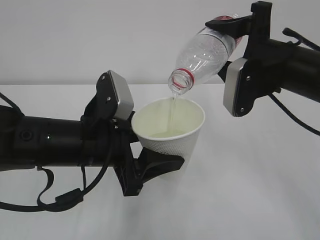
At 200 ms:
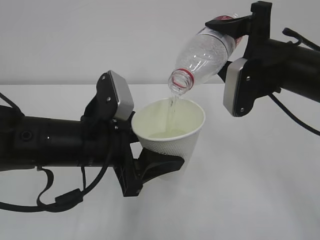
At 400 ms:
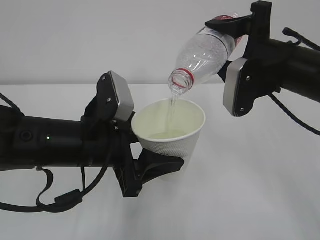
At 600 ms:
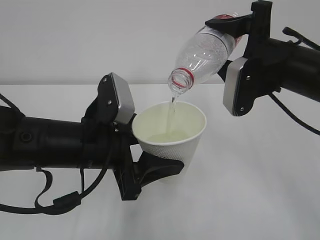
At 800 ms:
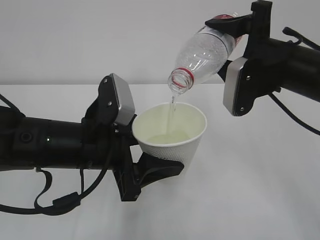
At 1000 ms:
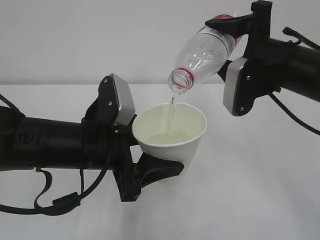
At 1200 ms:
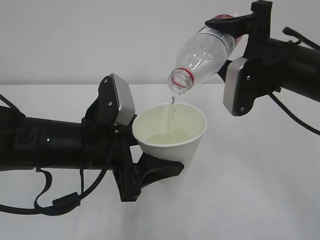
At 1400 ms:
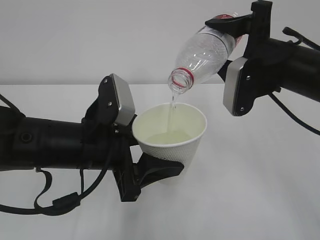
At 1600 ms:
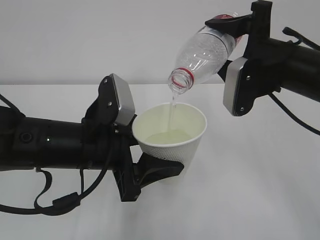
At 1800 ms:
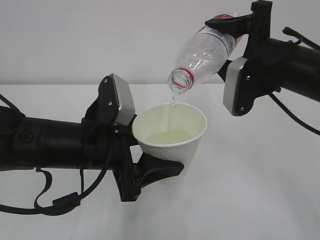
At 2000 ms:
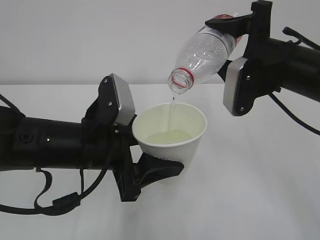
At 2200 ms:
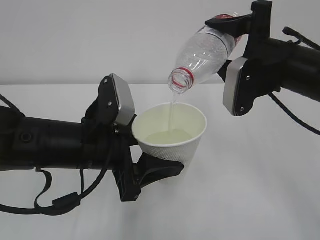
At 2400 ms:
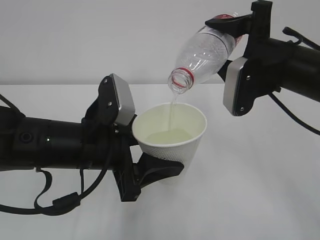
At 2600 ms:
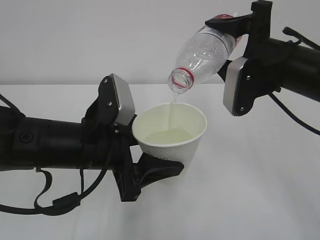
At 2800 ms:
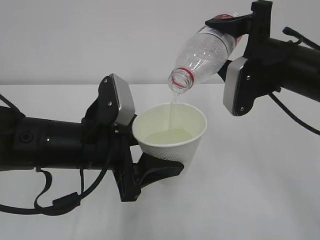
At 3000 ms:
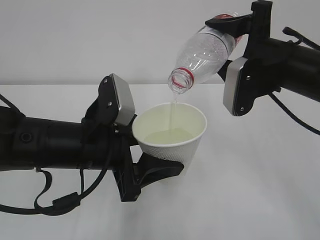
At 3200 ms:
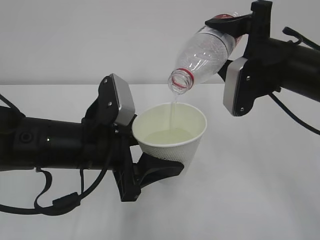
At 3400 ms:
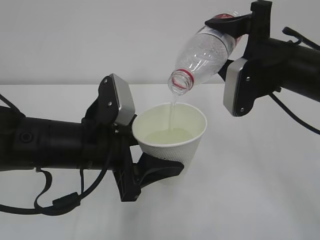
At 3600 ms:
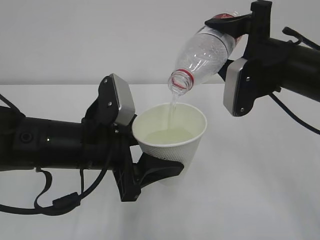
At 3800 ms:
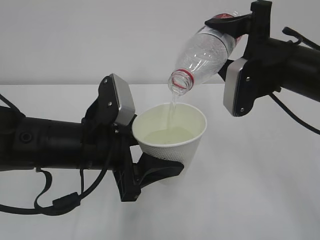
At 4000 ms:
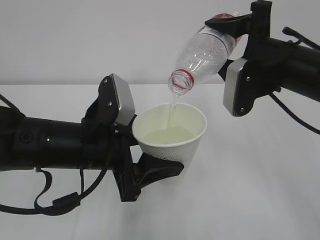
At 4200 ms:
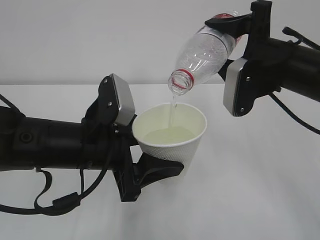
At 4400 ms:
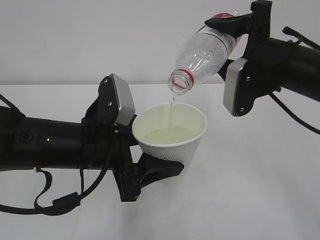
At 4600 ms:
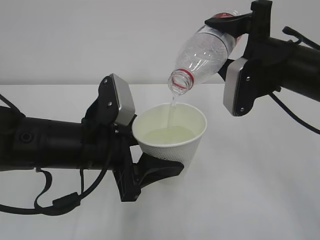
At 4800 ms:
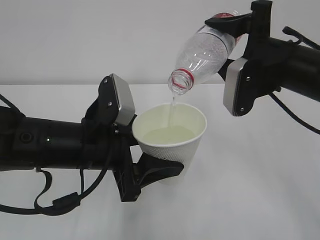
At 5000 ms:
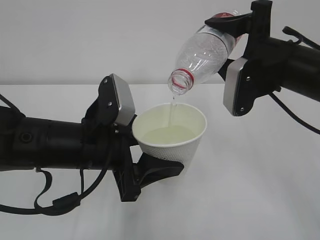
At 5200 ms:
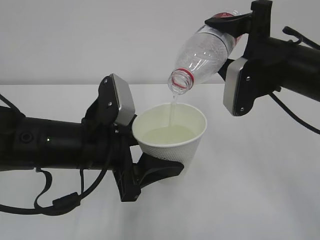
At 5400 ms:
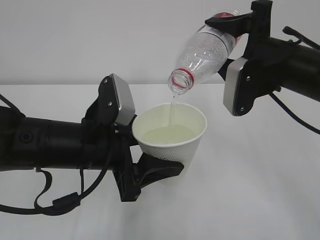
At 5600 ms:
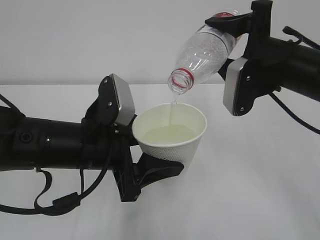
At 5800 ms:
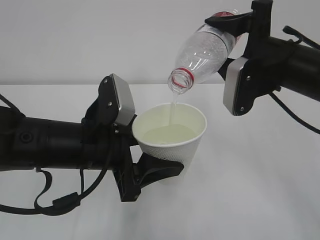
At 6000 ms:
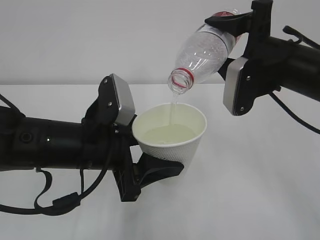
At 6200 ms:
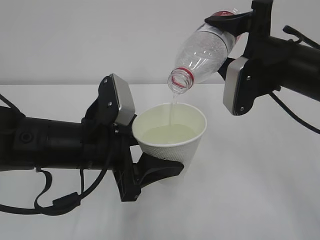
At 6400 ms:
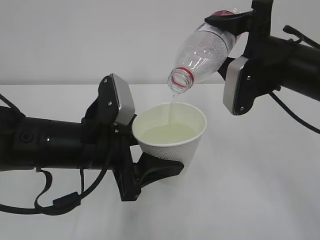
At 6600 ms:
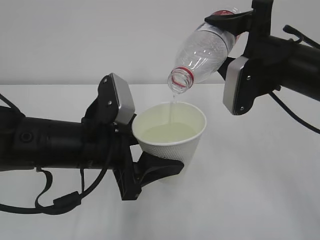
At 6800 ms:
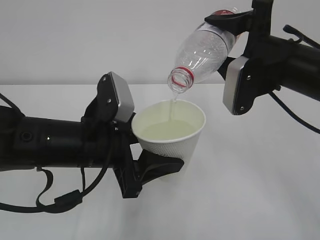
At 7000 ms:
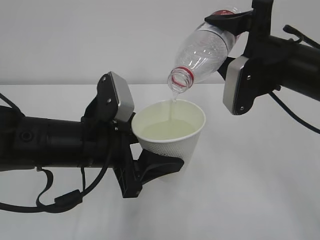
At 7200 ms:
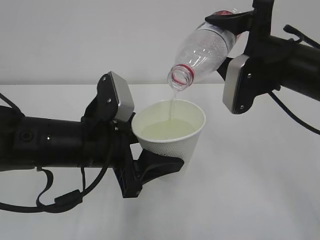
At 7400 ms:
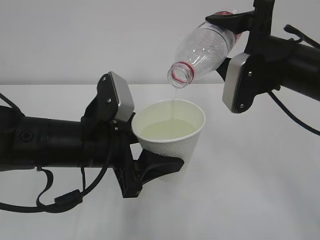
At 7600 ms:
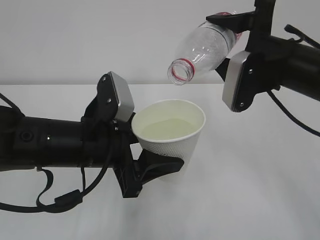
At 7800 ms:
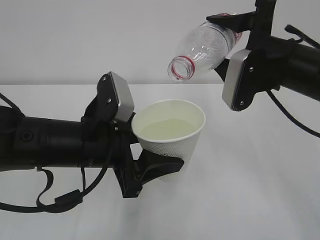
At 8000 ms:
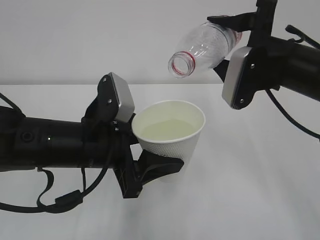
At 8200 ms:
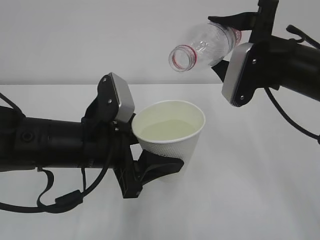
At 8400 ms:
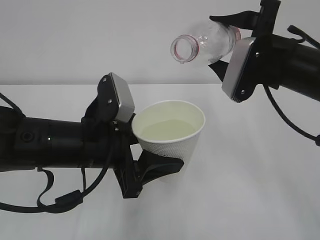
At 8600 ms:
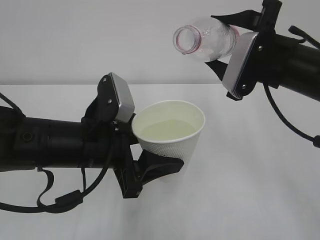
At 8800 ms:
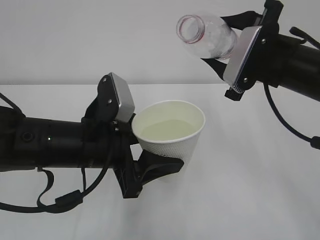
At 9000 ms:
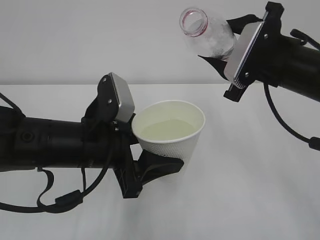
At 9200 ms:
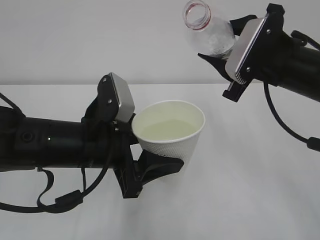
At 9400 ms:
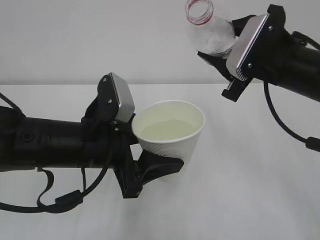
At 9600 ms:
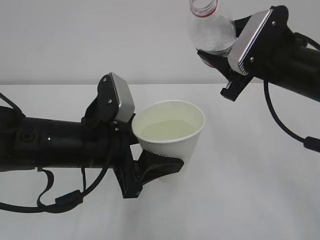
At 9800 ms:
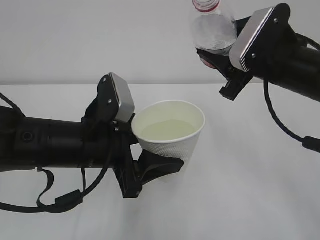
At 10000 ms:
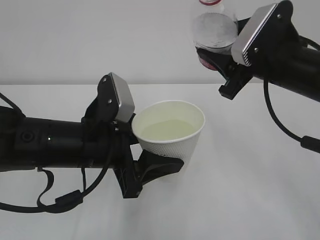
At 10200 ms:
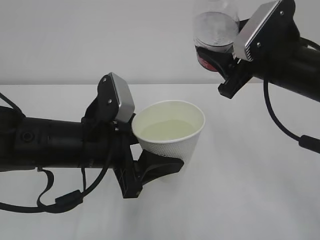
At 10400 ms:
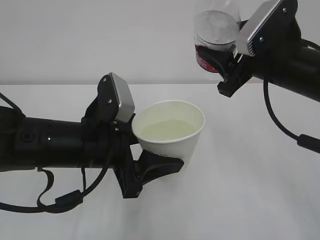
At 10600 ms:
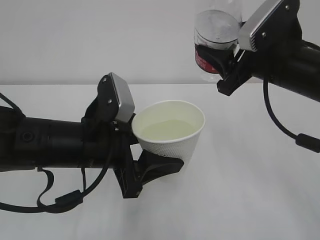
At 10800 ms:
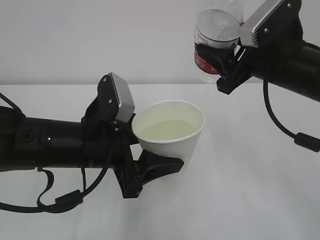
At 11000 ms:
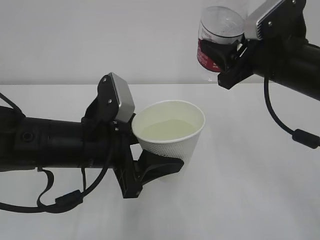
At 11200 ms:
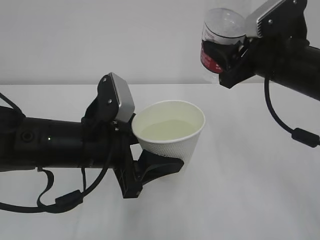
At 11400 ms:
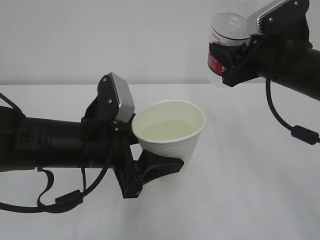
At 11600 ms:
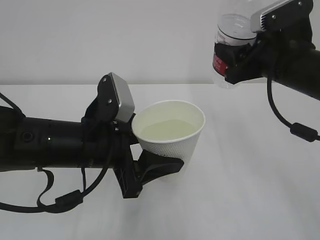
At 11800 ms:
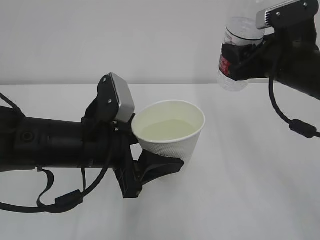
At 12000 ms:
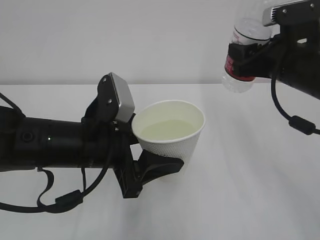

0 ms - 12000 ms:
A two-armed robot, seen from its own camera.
0 ms - 6000 ms: Neither gripper changes place.
6000 ms - 7600 ms: The grippers stay close to where they were, moving slightly.
7600 ms - 9000 ms: The right gripper closes its fingers.

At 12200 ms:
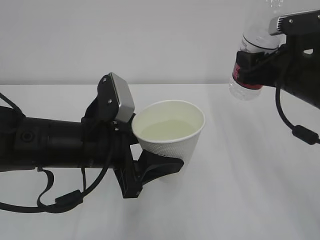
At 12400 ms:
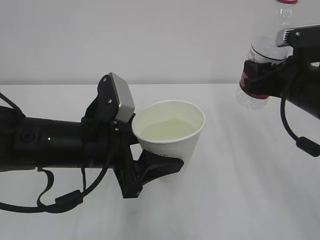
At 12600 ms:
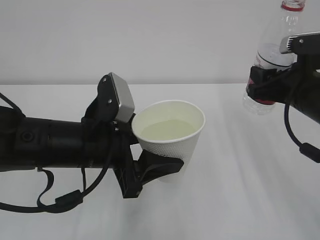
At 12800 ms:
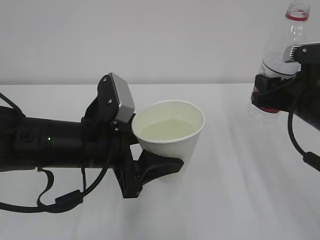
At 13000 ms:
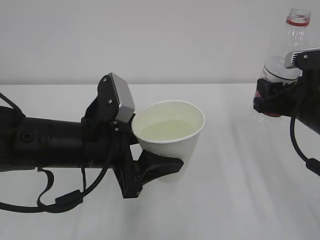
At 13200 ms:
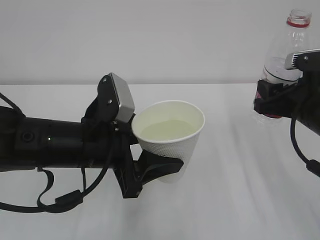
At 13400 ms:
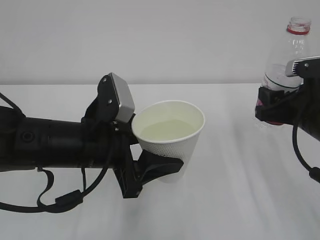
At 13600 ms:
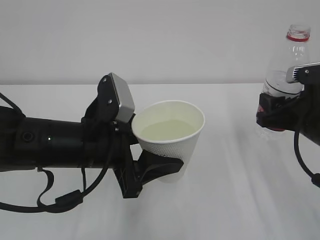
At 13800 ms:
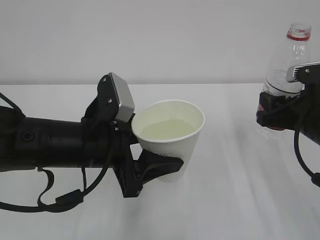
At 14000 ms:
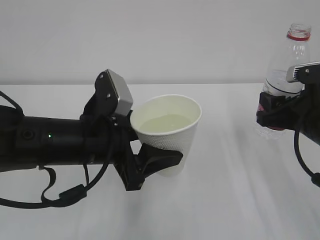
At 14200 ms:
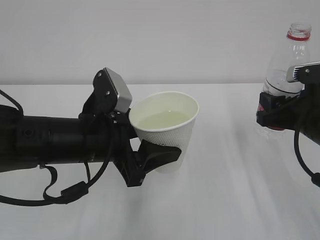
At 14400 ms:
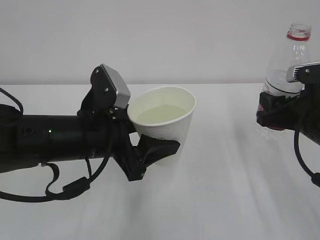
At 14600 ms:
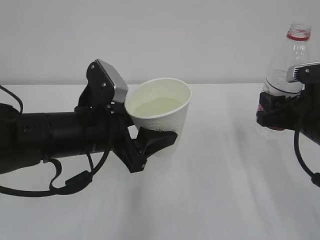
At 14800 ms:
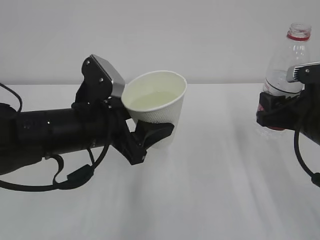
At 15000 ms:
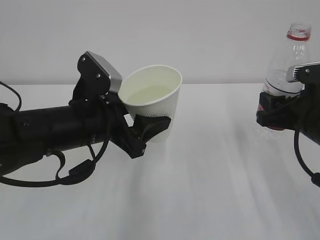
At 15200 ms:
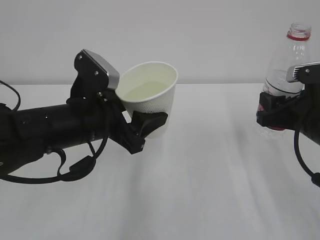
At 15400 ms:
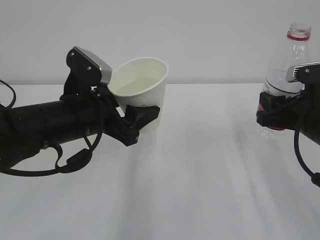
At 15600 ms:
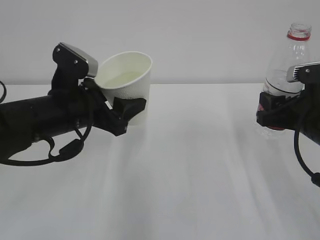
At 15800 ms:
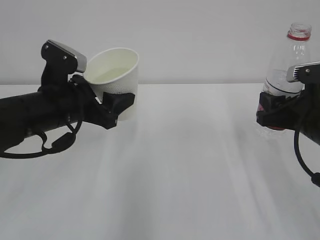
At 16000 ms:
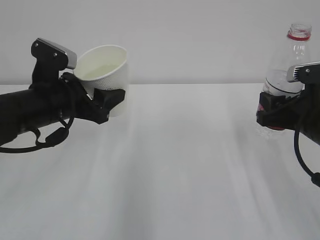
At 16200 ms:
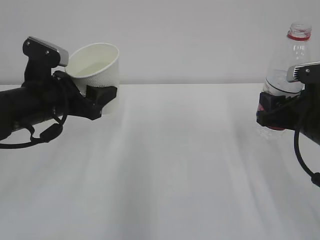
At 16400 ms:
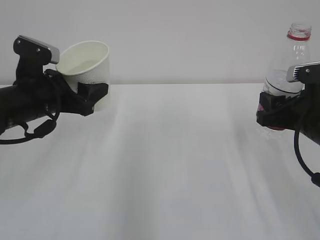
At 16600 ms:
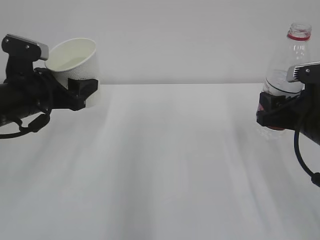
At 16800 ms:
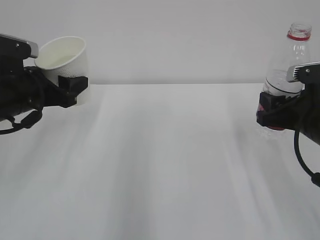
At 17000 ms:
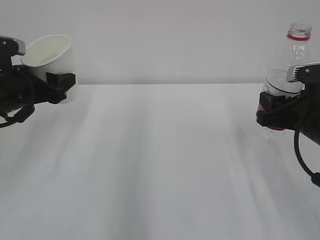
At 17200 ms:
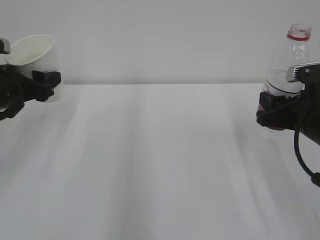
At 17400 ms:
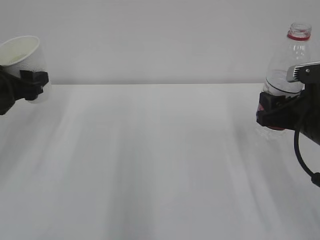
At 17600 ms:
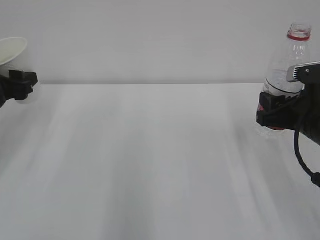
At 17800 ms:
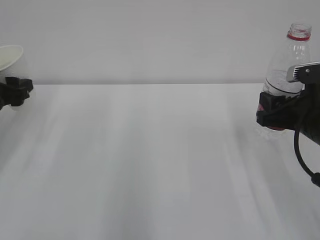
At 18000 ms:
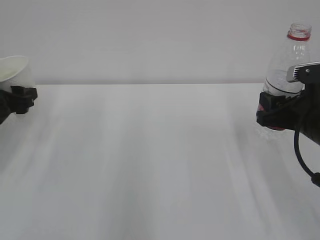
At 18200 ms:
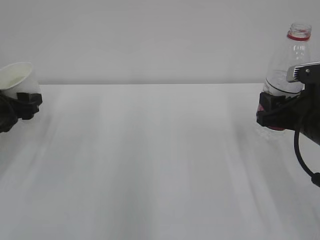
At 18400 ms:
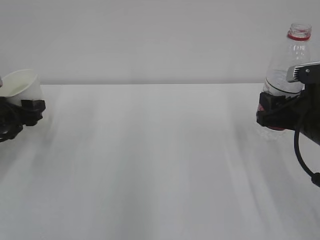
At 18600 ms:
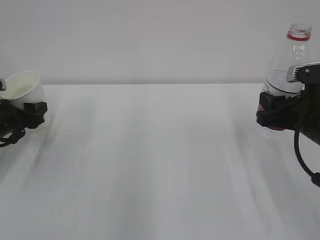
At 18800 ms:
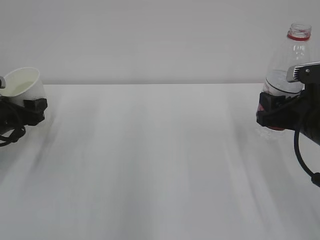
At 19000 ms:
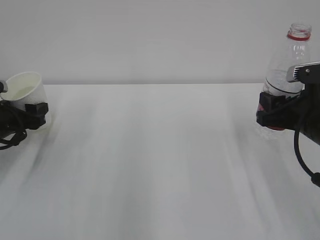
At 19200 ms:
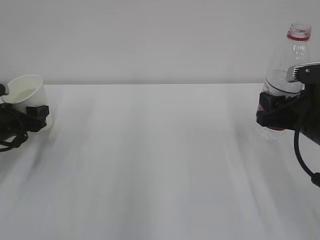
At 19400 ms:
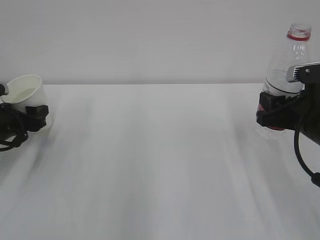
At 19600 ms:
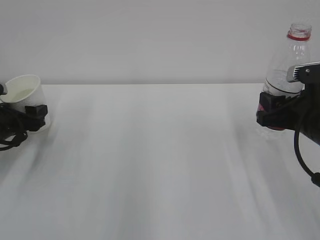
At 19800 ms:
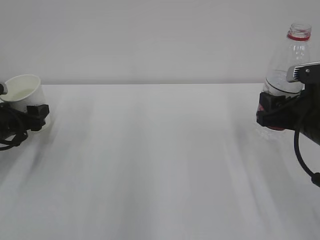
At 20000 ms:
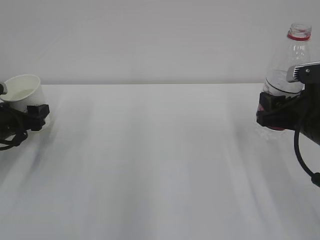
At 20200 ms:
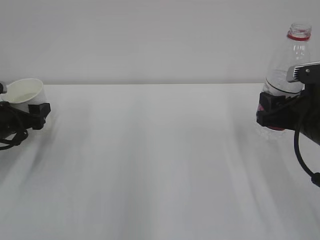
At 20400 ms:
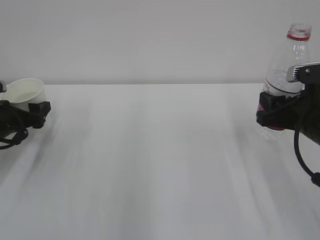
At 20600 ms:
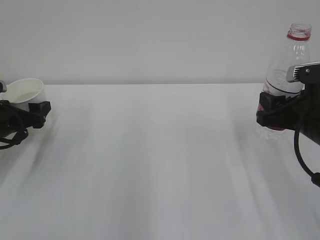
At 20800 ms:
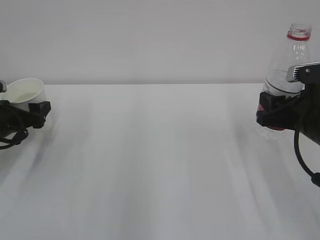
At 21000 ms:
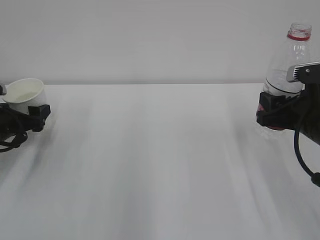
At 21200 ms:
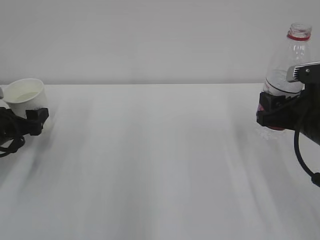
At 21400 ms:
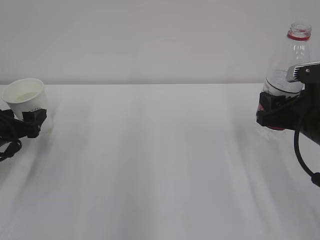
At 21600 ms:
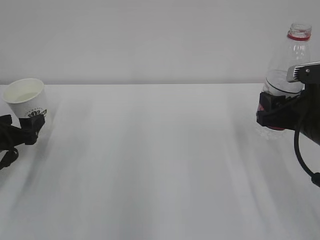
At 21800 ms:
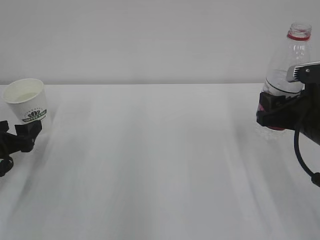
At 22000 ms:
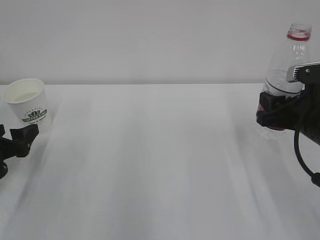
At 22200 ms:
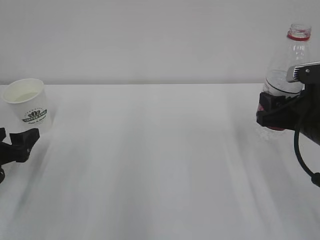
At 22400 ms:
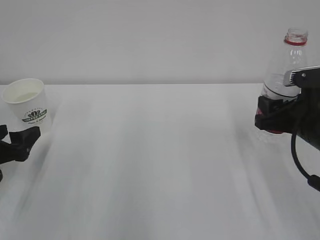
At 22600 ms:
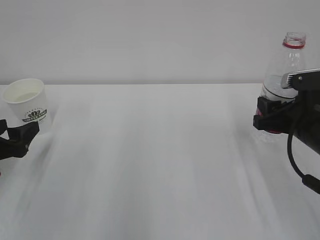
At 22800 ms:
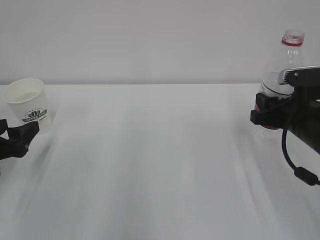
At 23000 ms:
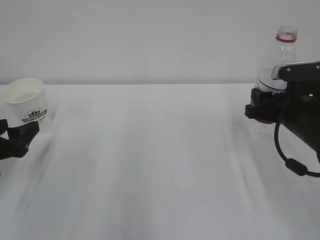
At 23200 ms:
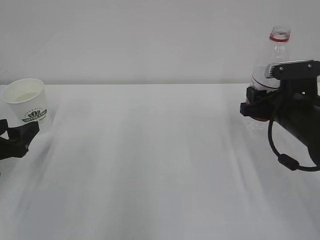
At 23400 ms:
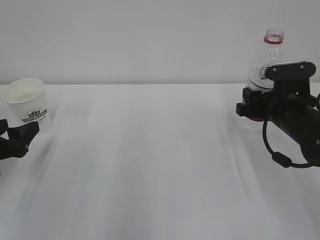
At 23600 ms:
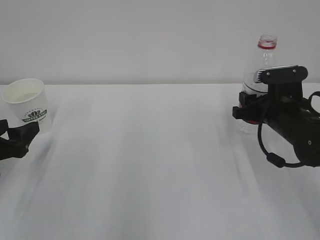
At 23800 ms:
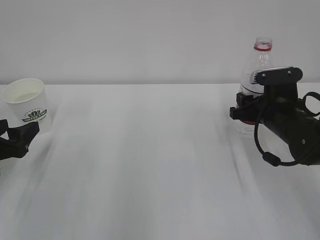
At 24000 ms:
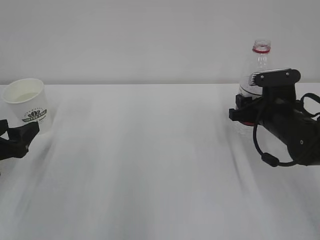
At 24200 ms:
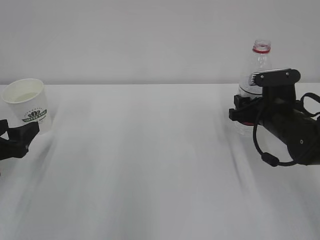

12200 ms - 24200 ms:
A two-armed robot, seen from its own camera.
12200 ms - 13800 ms: The right gripper moves approximately 5 cm.
15200 ms - 16600 ms: The left gripper moves to the left and forward, approximately 10 cm.
16600 ms - 18200 ms: The left gripper goes roughly 10 cm to the left and downward.
18200 ms - 19800 ms: The left gripper opens up.
19800 ms - 21200 ms: The left gripper opens up.
21200 ms - 22600 ms: The left gripper shifts approximately 10 cm backward.
22600 ms - 24200 ms: The right gripper is displaced forward by approximately 5 cm, and opens its fingers.
